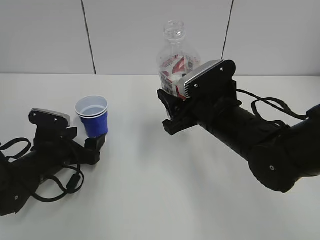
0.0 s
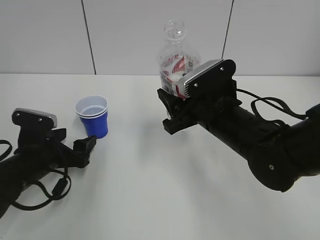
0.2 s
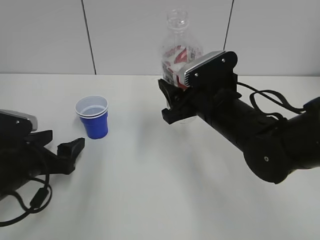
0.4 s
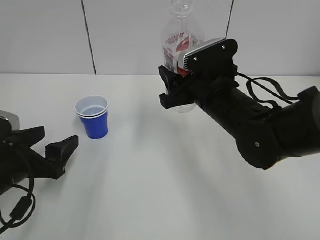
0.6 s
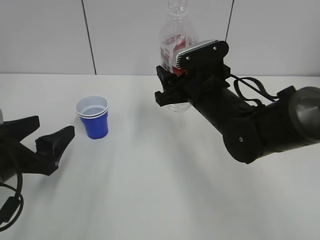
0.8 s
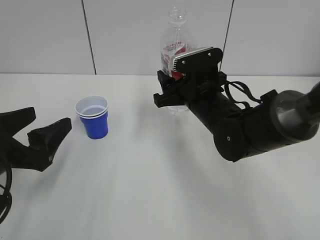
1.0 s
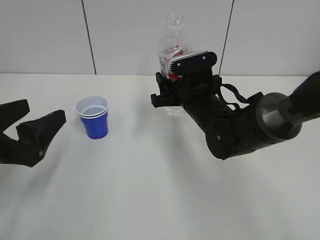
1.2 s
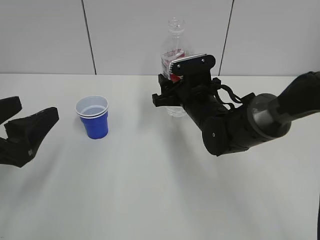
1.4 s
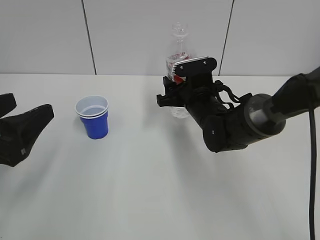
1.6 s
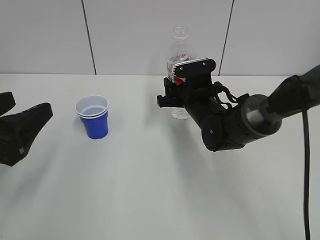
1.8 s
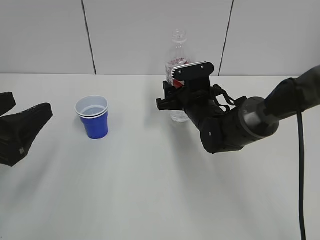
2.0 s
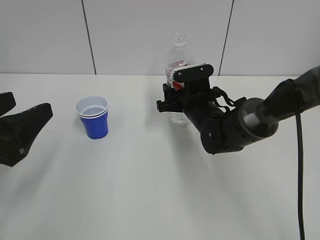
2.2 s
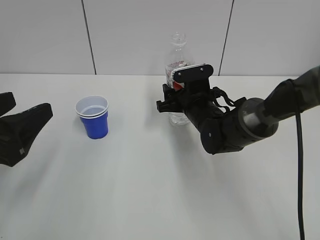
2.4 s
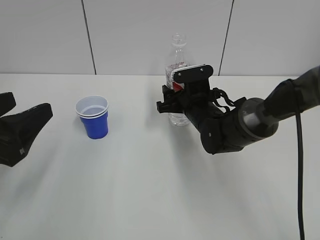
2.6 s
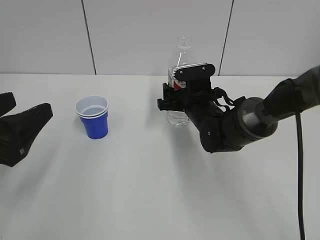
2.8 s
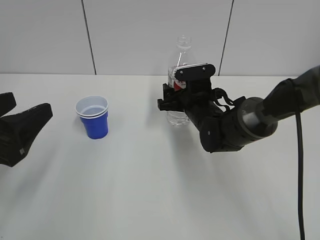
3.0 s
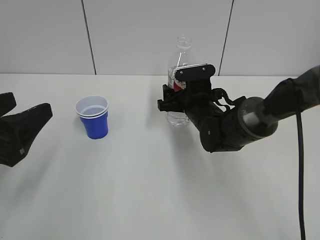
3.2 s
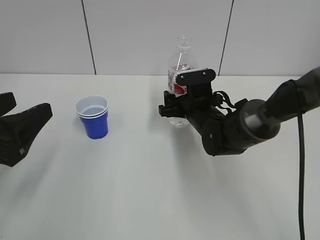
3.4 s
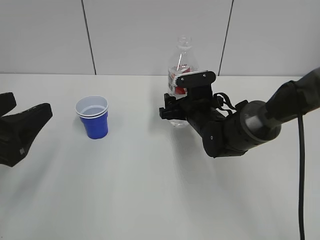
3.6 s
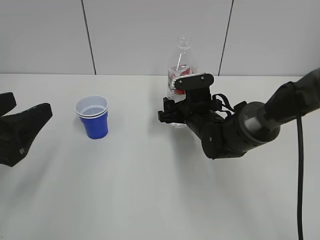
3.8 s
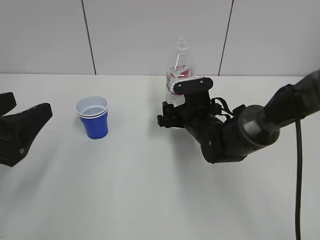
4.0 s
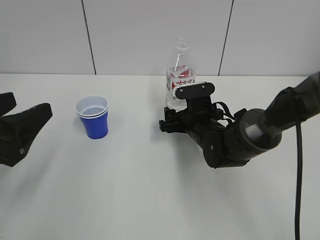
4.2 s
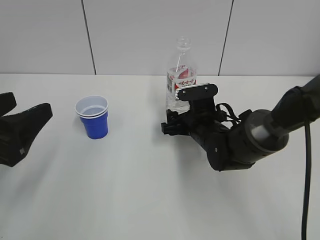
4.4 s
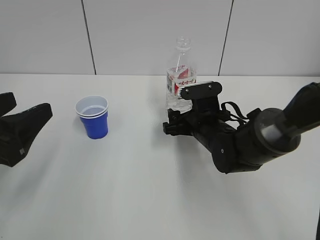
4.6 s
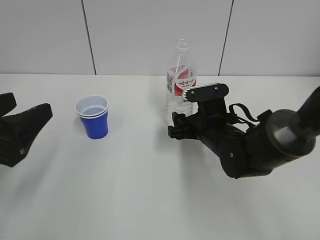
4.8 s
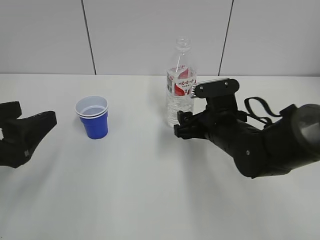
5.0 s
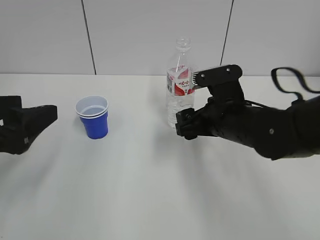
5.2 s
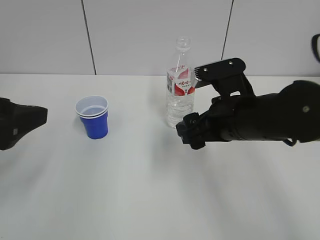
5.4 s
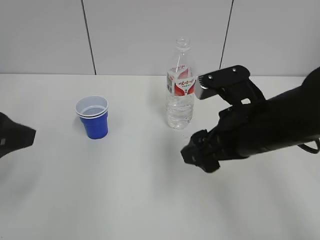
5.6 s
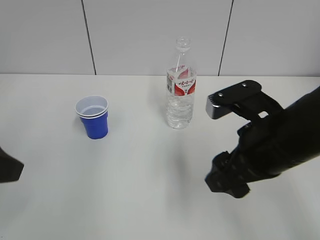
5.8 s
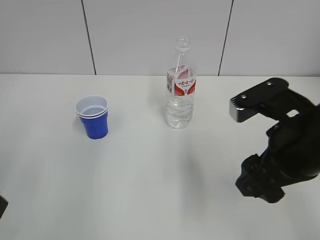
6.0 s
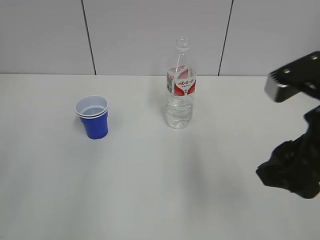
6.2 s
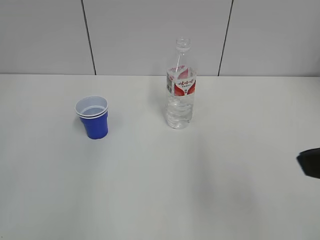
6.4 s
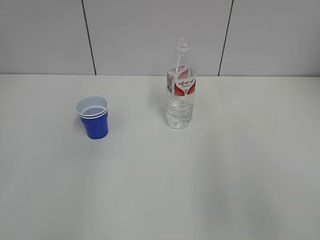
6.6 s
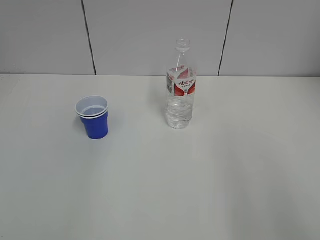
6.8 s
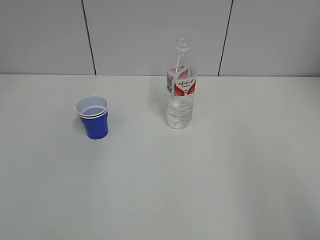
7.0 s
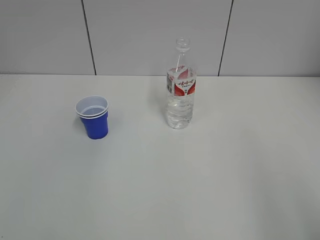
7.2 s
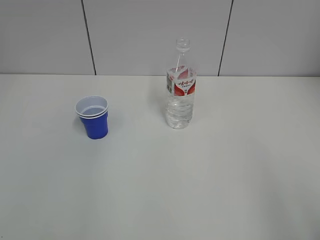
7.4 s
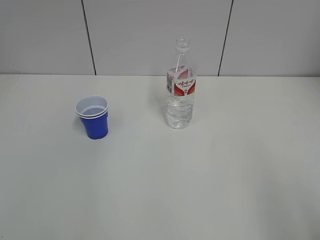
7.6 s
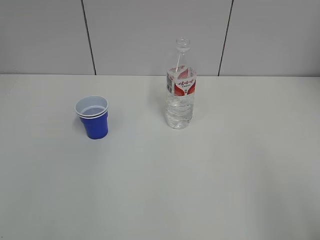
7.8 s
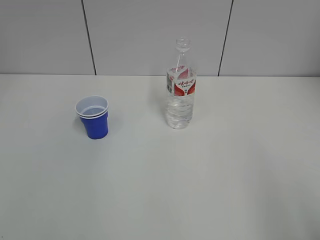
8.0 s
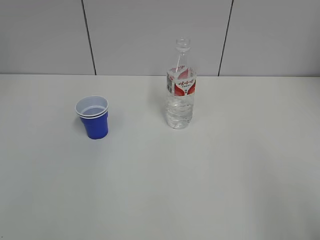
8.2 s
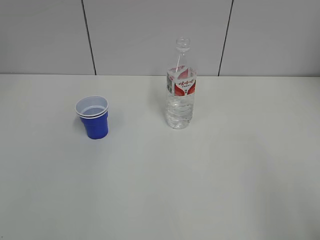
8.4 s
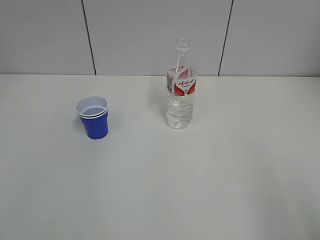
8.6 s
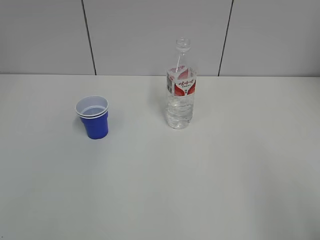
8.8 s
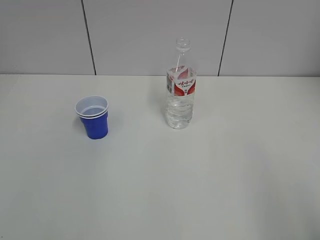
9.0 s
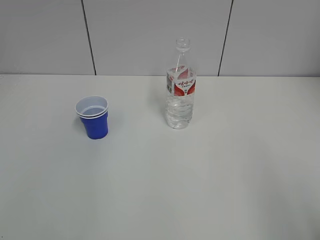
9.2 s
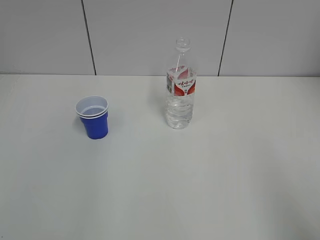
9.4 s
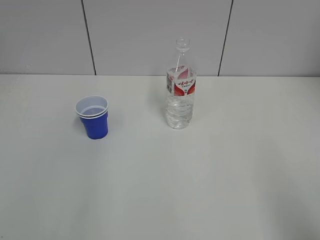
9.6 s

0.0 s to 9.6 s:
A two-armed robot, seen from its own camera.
Step, 0.0 to 4.4 s: Place the water bottle with the right hand.
0.0 to 1.6 s: The left gripper travels upward and backward by some 20 cm, while the right gripper heads forward, covering roughly 10 cm.
1.6 to 3.2 s: The right gripper opens its fingers.
3.2 to 4.8 s: The right gripper shifts roughly 5 cm backward.
4.8 to 6.4 s: The left gripper shifts about 10 cm backward and upward; the right gripper goes roughly 35 cm upward, backward and to the right.
6.4 to 8.0 s: The right gripper travels backward, to the right and downward by about 15 cm.

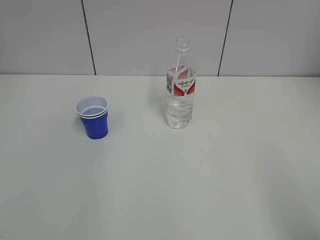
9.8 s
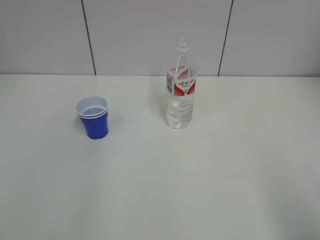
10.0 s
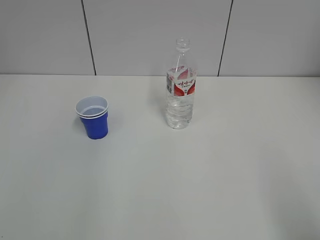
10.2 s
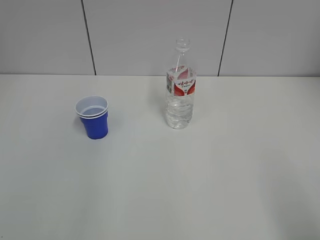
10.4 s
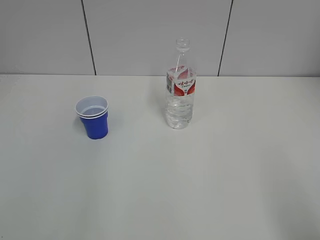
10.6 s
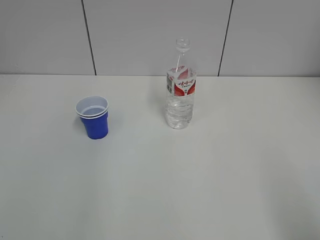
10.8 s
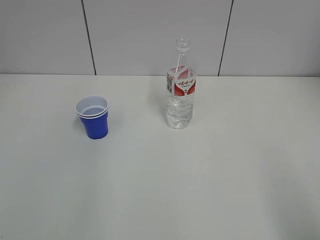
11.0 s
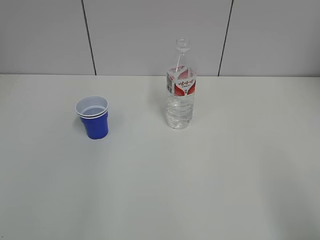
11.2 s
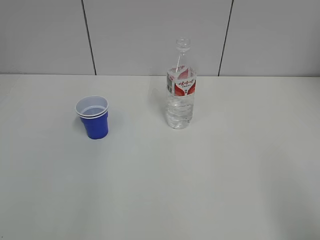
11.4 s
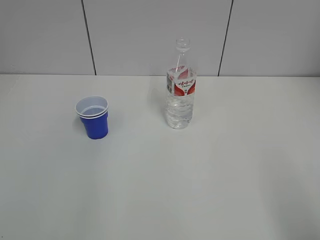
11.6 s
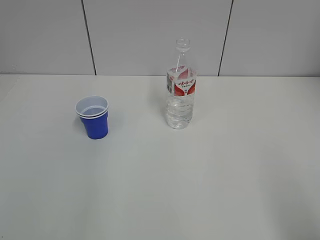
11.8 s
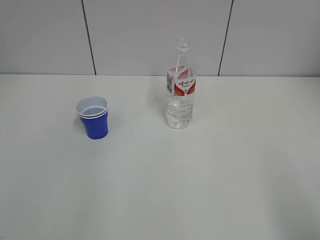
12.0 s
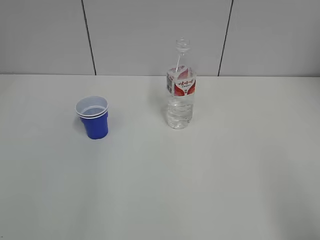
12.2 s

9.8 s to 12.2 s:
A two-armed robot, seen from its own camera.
11.0 to 12.2 s: The two grippers keep their place.

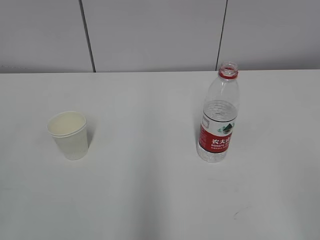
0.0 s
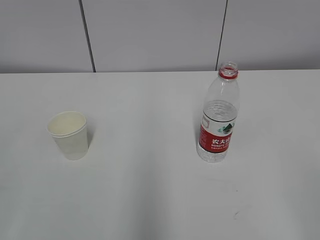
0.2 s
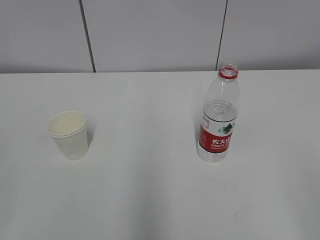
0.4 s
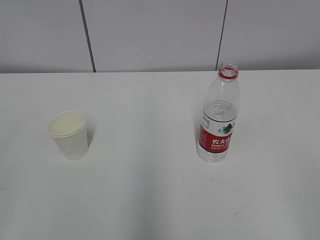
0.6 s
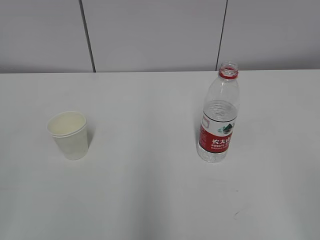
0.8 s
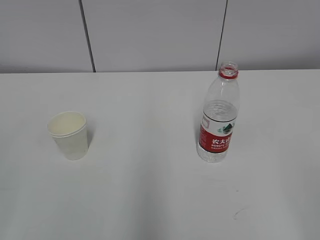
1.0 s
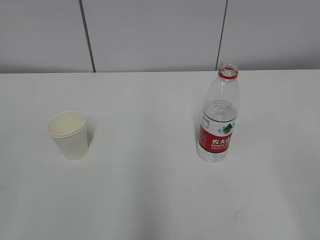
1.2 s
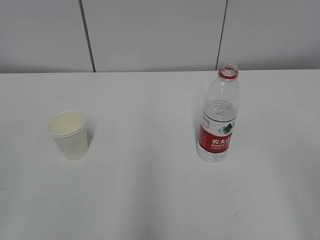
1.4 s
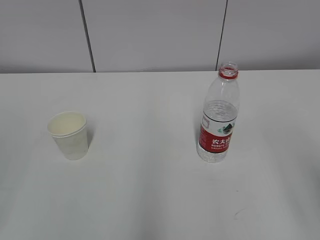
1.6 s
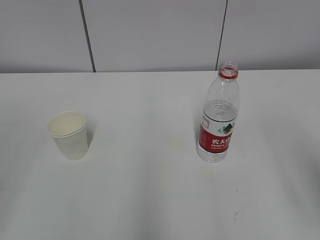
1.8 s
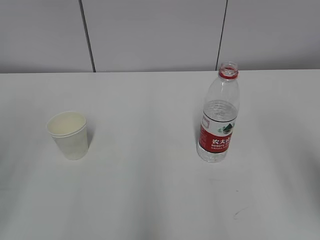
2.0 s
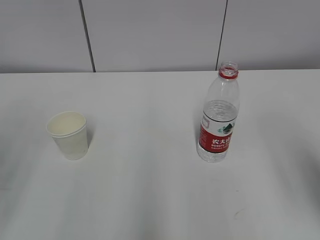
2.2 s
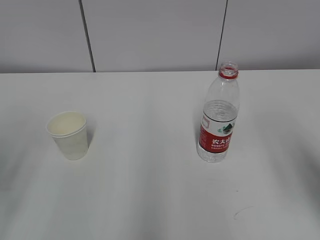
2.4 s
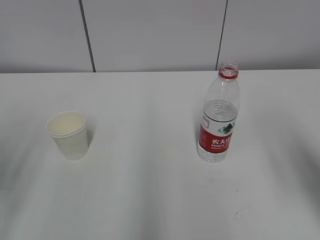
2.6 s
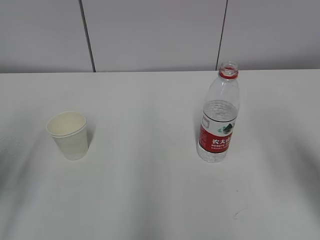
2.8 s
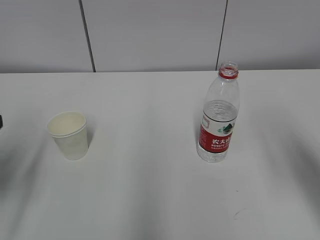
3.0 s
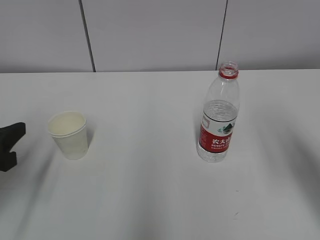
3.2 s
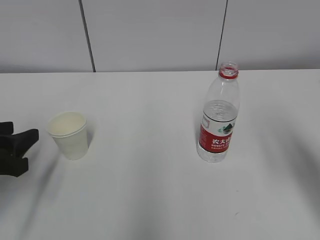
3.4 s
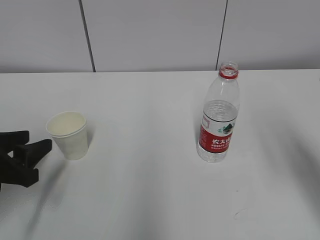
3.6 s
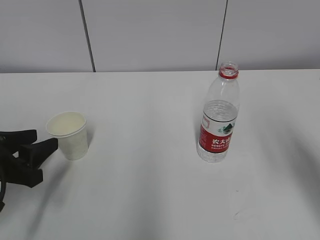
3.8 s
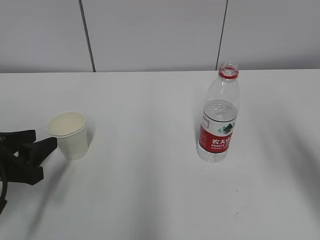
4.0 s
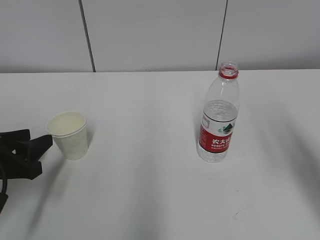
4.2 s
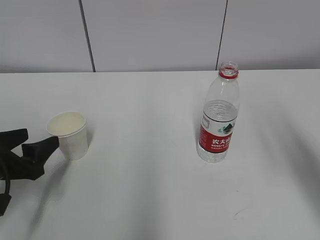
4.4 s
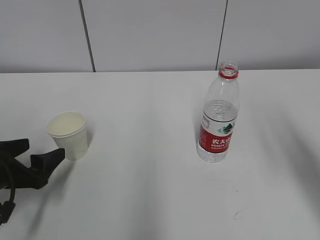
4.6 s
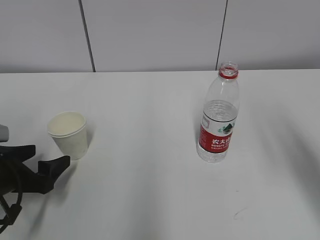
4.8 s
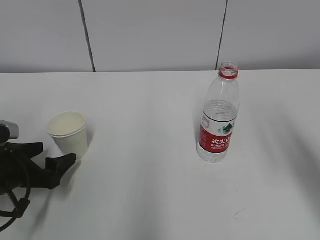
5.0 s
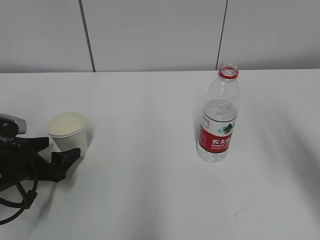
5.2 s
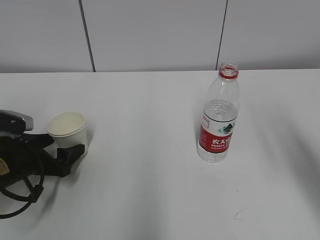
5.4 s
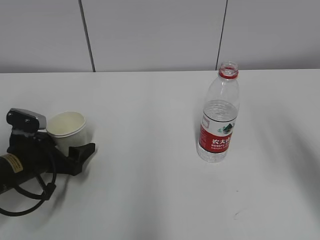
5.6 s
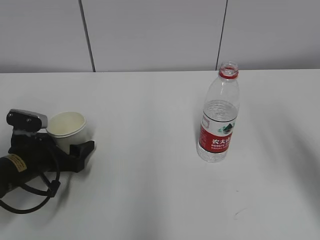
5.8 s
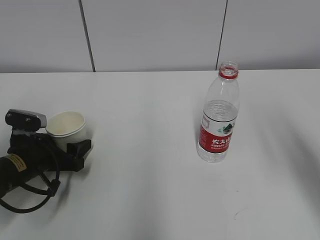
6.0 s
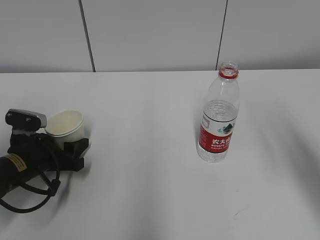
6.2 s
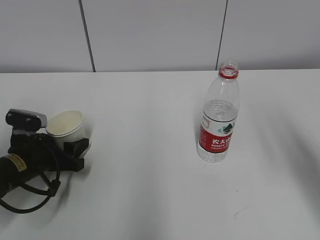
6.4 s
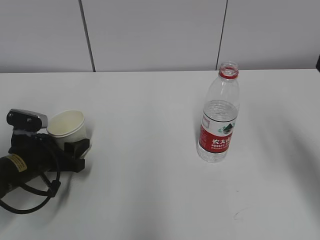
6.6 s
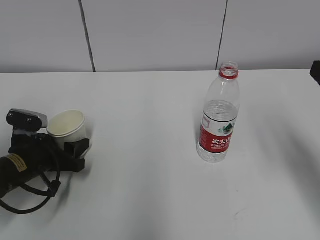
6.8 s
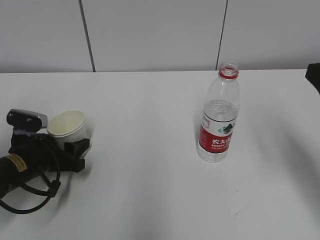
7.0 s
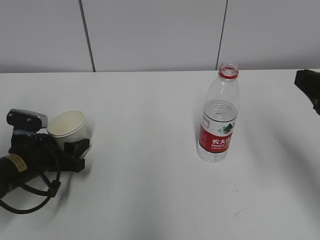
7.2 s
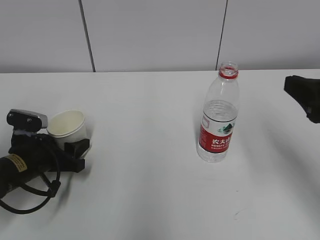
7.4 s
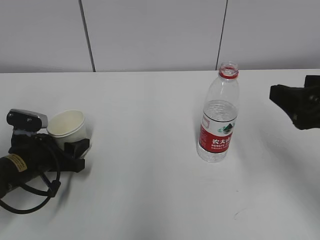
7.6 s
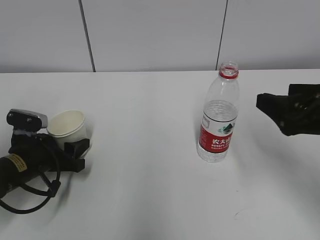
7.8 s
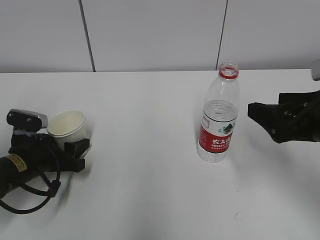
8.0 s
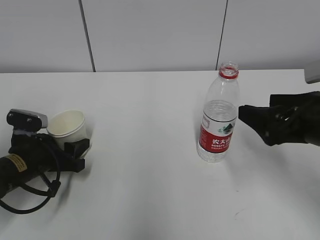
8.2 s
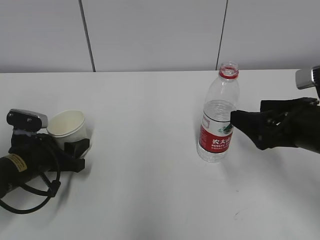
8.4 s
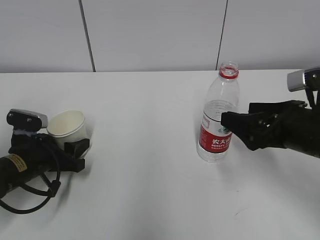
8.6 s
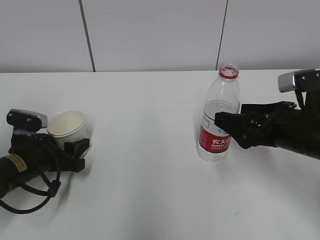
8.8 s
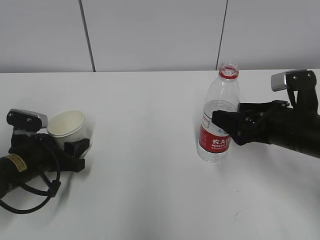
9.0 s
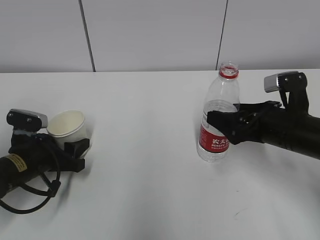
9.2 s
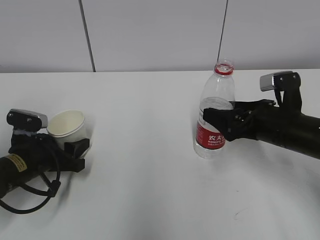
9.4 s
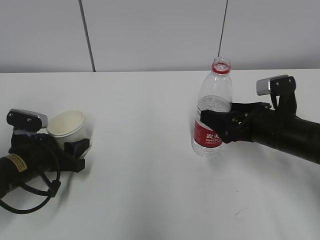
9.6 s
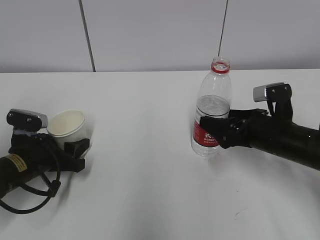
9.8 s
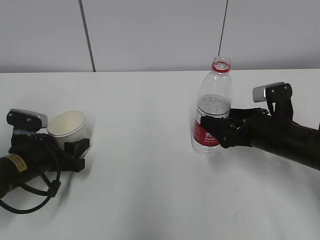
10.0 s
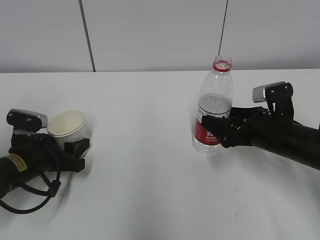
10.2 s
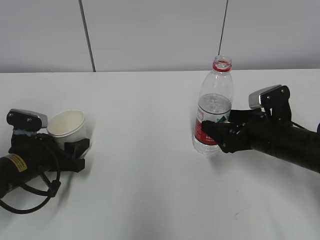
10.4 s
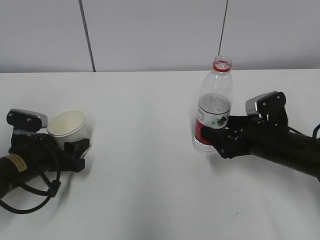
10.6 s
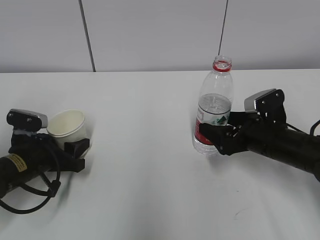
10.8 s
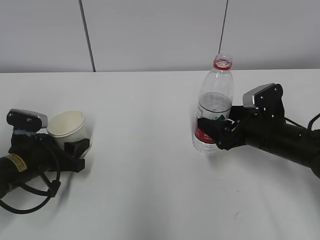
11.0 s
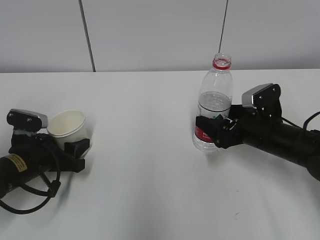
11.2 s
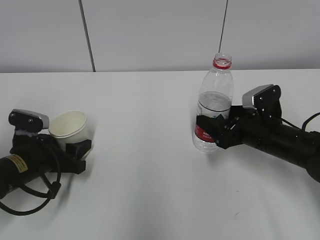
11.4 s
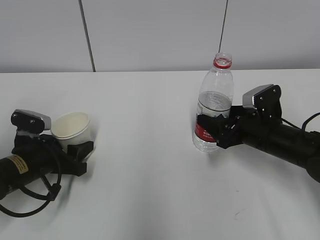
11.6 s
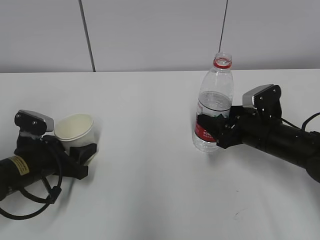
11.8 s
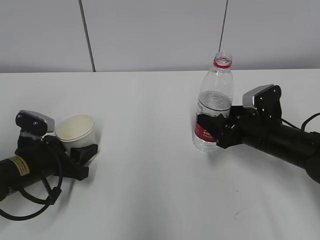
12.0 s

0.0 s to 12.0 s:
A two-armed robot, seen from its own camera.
Step, 0.0 to 9.4 s: Grab the paper cup with the left hand.
Step, 9.6 to 11.8 s: Grab the water bottle with the right hand.
1.6 to 3.0 s: The right gripper travels forward by roughly 10 cm. Meanwhile the left gripper is displaced forward and downward by some 20 cm.
3.0 to 4.4 s: The left gripper moves downward, approximately 10 cm, and opens.
4.4 to 6.0 s: The left gripper travels forward and downward by some 10 cm.
6.0 to 7.6 s: The left gripper closes up; the right gripper ends up about 5 cm from where it was.
7.6 to 9.0 s: The right gripper travels downward and forward by roughly 10 cm, and opens up.
9.0 to 10.4 s: The right gripper goes about 5 cm downward.
10.4 to 12.0 s: The right gripper closes.
